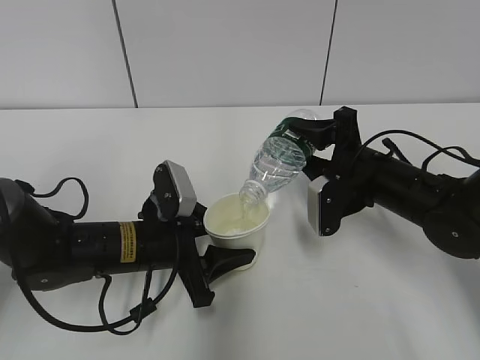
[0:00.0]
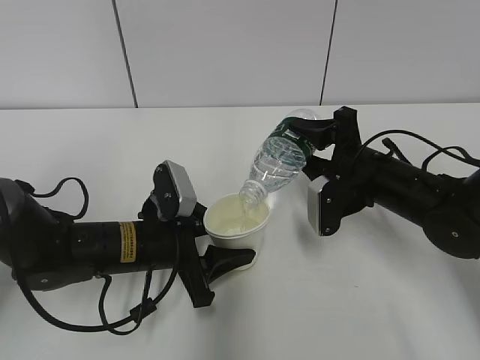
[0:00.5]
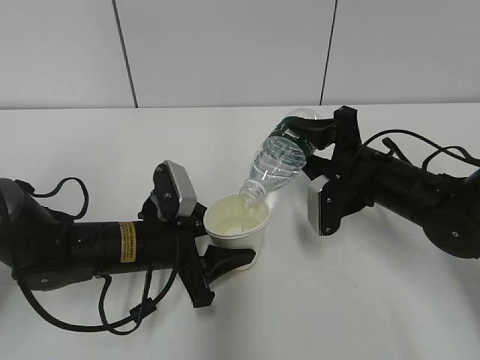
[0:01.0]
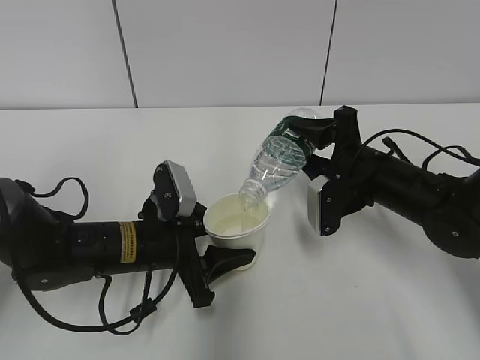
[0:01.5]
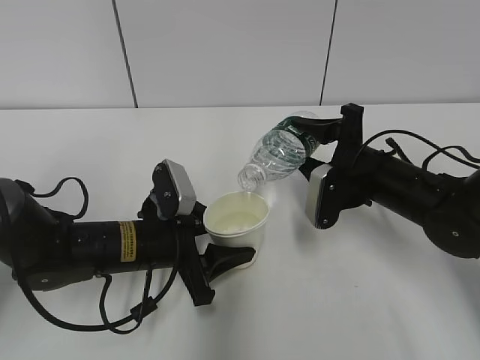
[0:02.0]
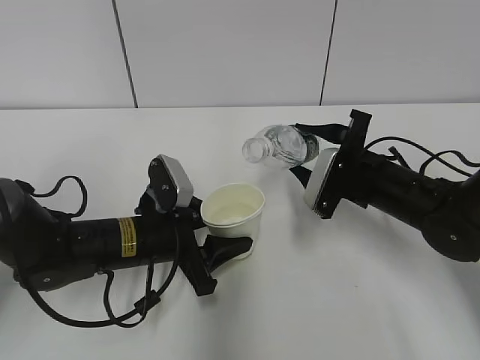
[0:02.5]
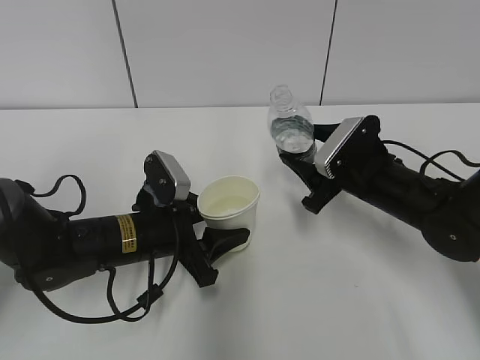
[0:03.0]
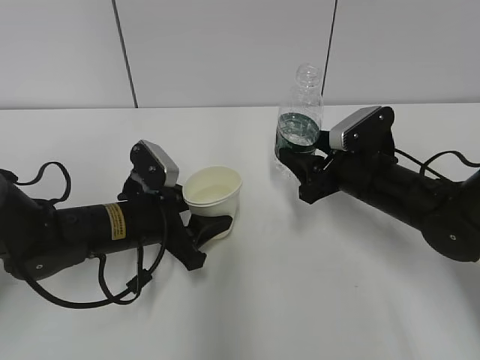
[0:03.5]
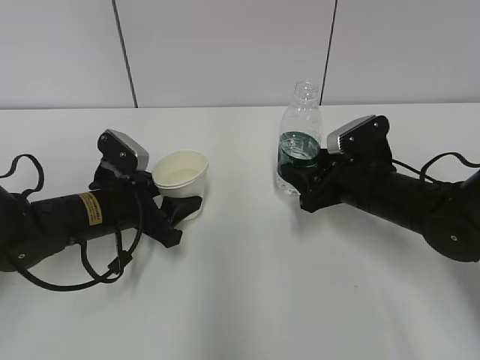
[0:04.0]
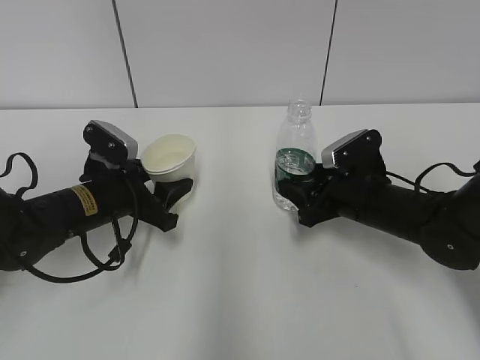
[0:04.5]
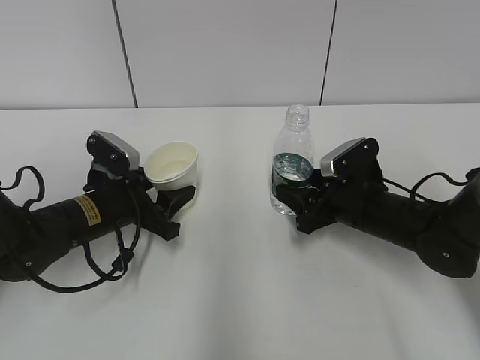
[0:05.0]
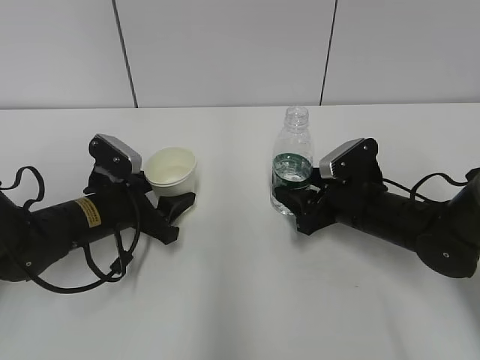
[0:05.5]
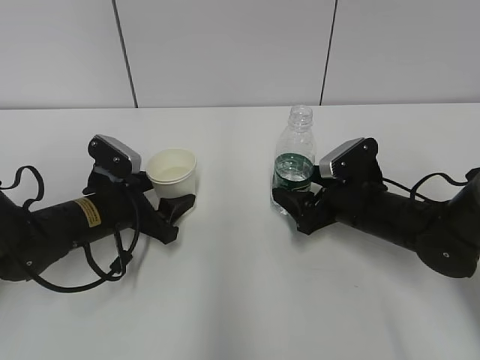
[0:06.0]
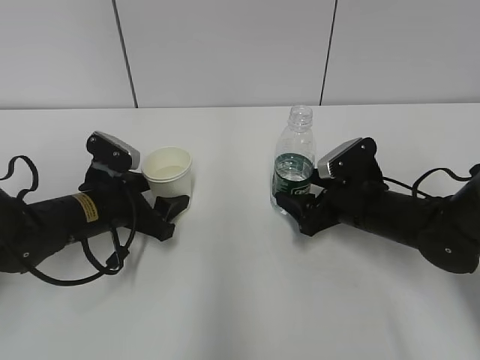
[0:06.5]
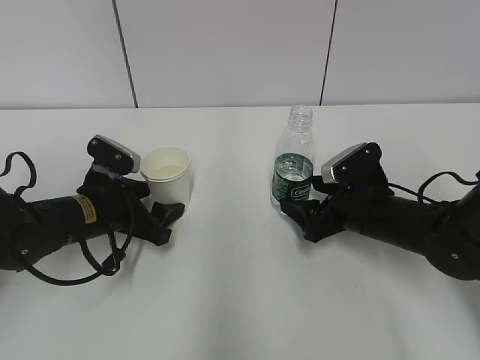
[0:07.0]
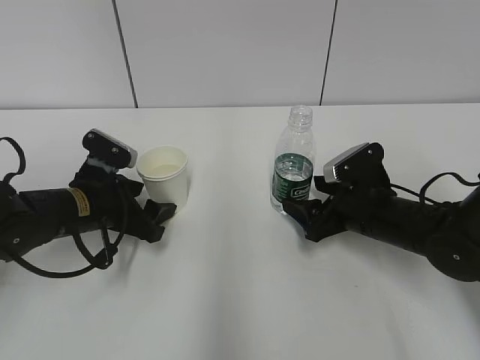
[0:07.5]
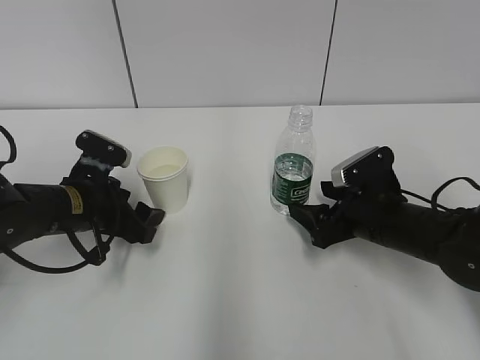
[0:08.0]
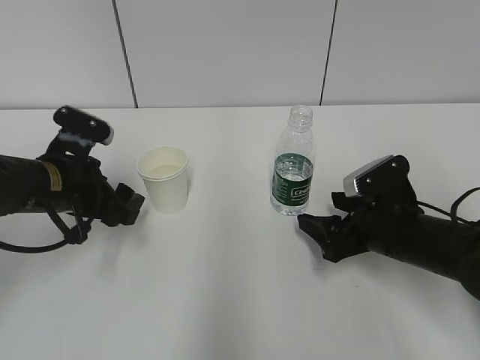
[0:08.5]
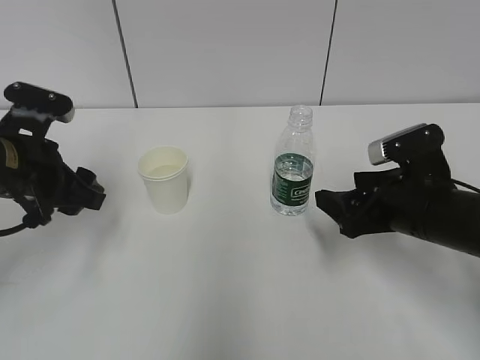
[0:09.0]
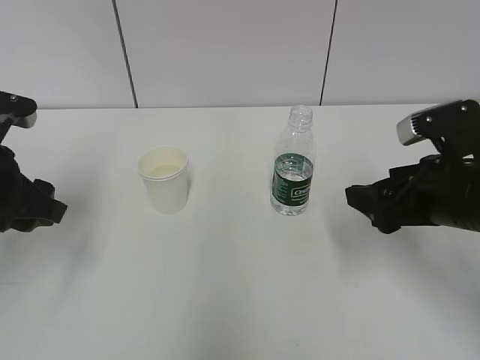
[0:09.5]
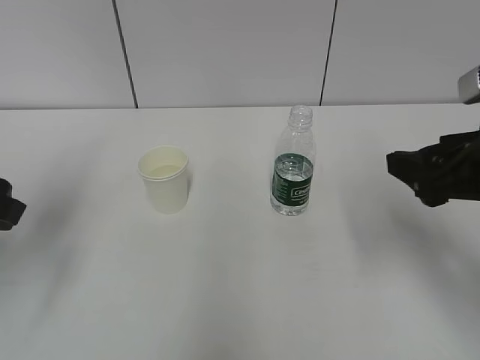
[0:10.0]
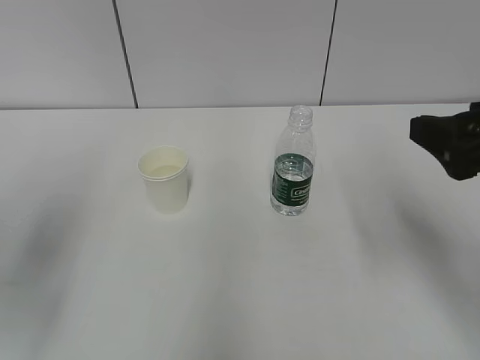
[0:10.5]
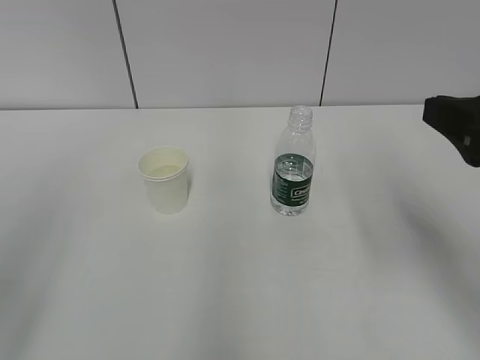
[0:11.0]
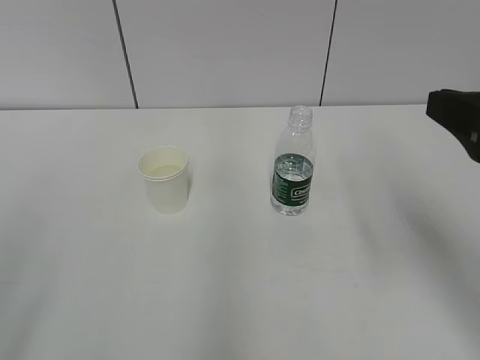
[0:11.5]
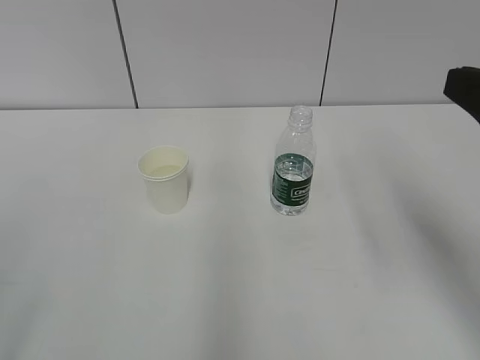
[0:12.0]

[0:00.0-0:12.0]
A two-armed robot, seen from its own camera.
0:00.0 to 0:02.0: The grippers make only small movements.
0:02.0 to 0:04.0: The left gripper moves to the left, some 5 cm.
0:04.0 to 0:06.0: The right gripper opens. The left gripper opens its fingers.
0:08.0 to 0:10.0: The right gripper is displaced upward and backward by about 20 cm. Meanwhile the left gripper travels upward, backward and to the left by about 20 cm.
0:10.0 to 0:12.0: The left gripper travels backward by roughly 20 cm, while the right gripper shifts some 10 cm upward and backward.

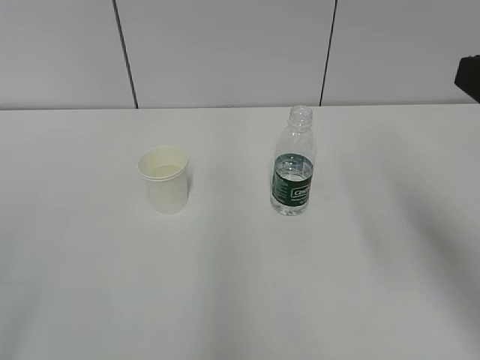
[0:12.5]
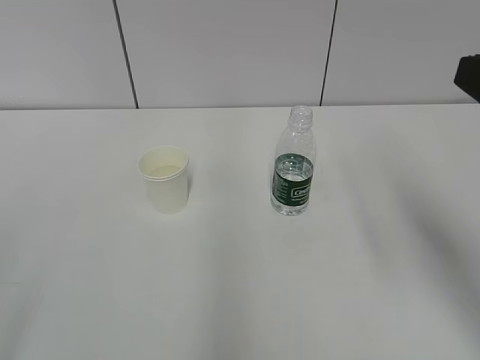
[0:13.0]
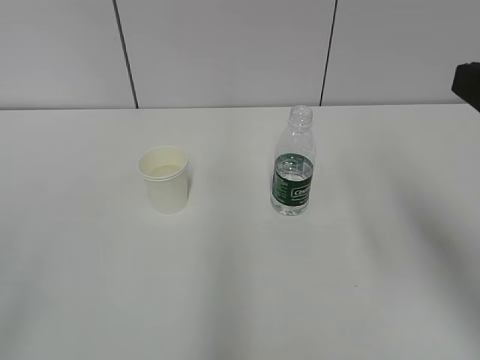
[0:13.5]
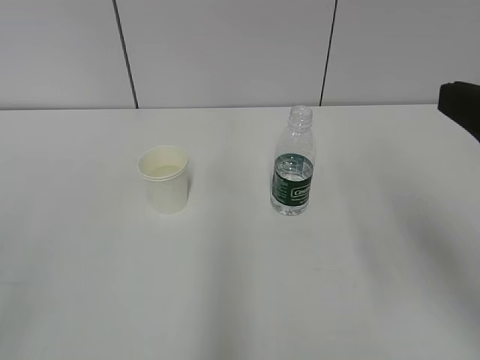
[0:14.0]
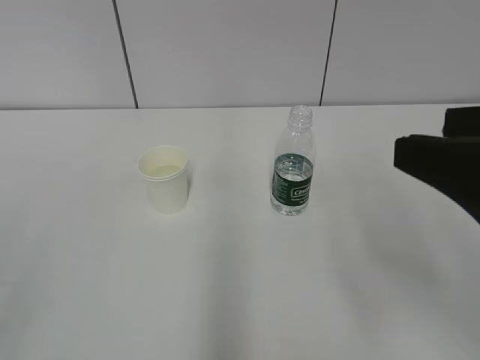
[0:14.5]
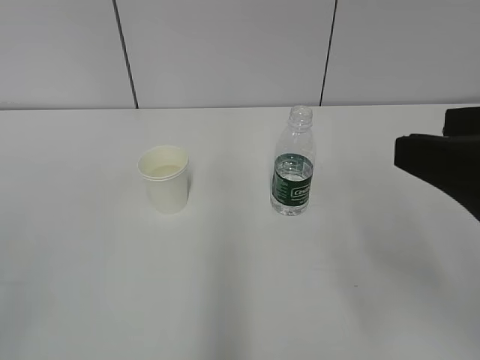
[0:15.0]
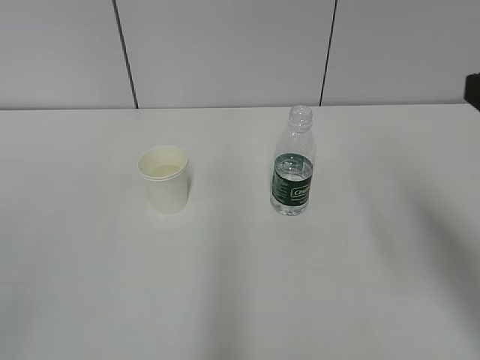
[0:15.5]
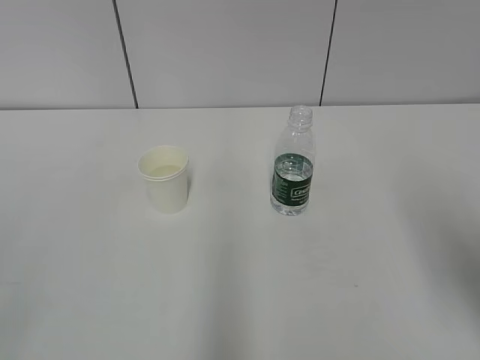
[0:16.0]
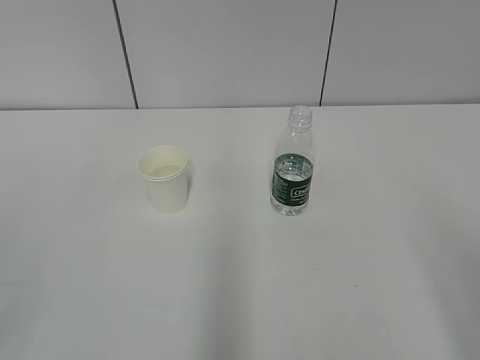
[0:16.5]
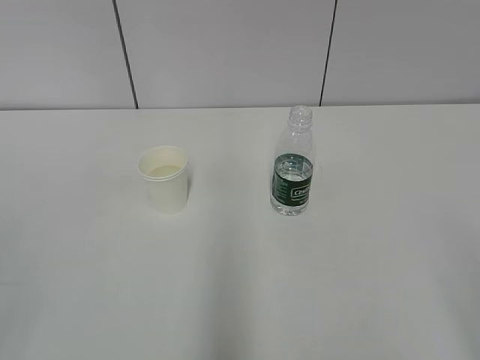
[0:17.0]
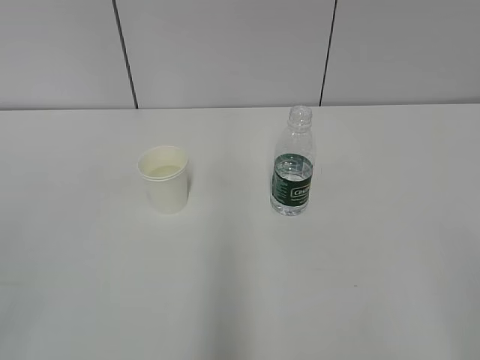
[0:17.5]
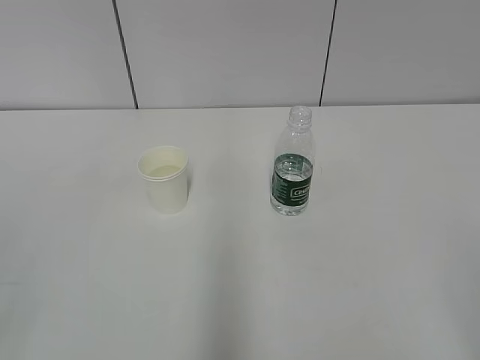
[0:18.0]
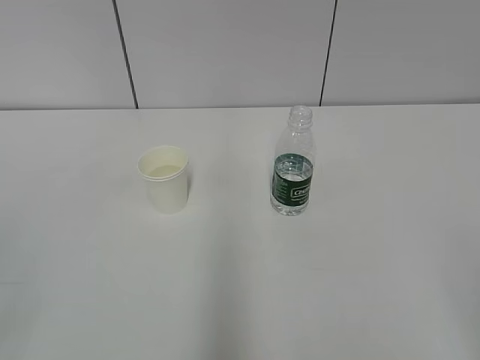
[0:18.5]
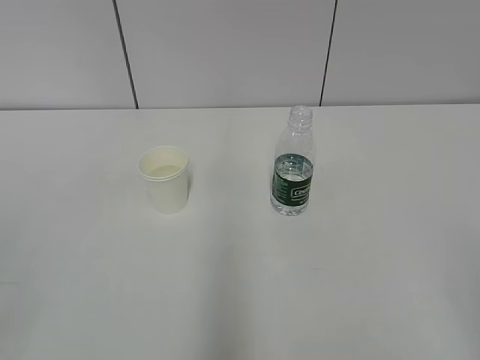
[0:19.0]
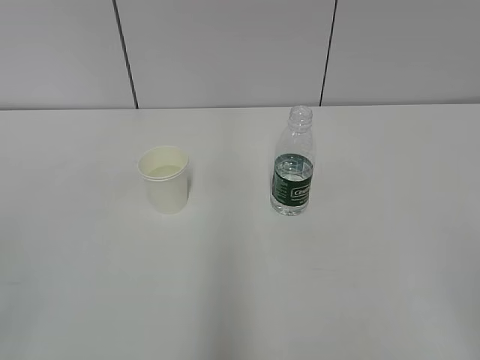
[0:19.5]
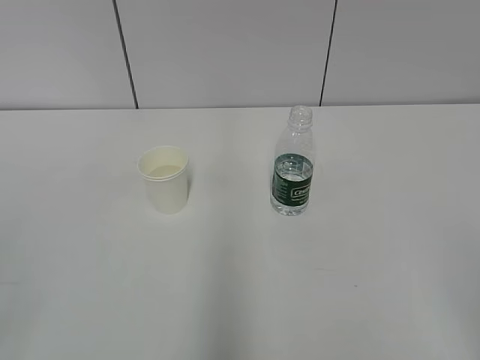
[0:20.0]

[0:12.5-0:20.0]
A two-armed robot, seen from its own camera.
0:14.5 to 0:16.5: The right gripper moves backward and to the right, some 10 cm.
